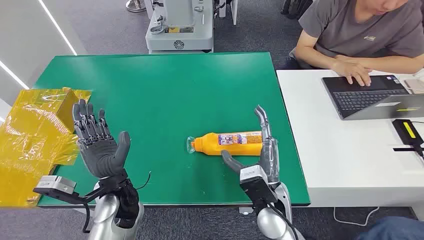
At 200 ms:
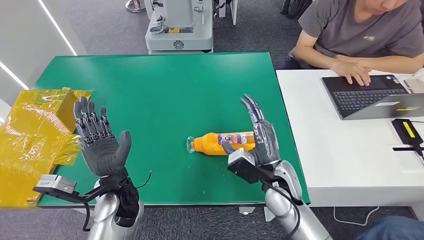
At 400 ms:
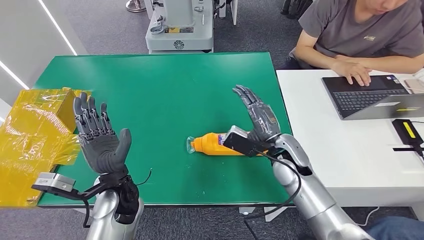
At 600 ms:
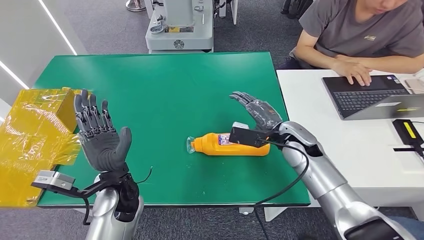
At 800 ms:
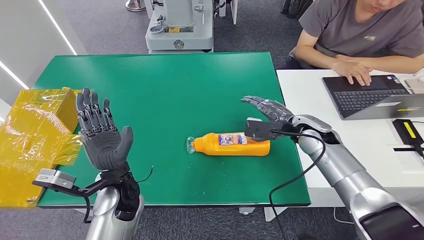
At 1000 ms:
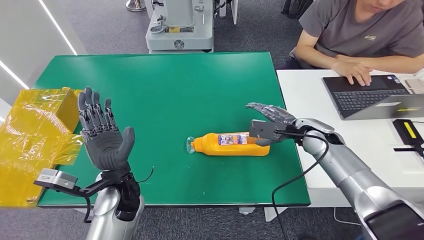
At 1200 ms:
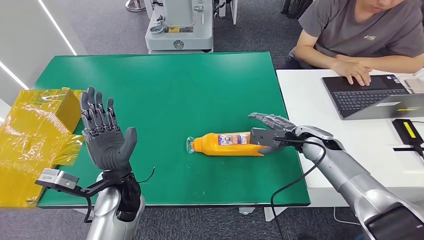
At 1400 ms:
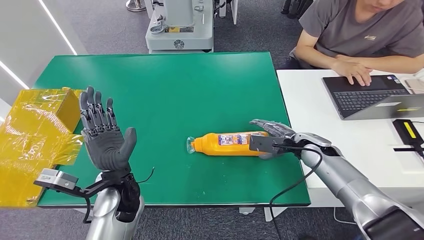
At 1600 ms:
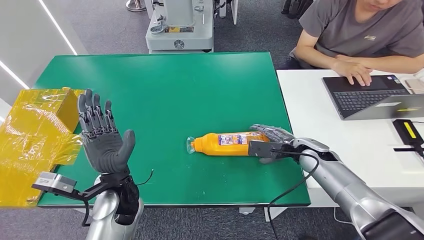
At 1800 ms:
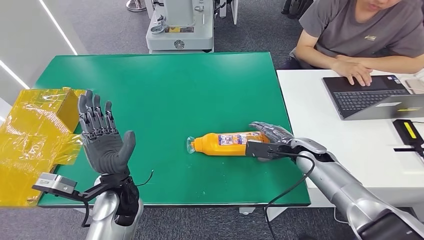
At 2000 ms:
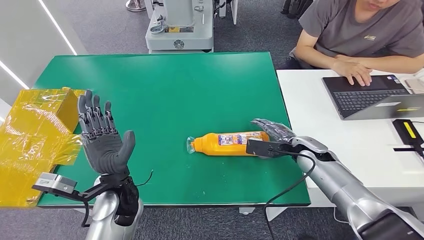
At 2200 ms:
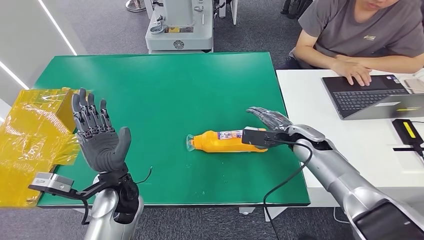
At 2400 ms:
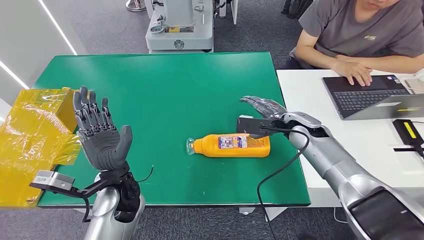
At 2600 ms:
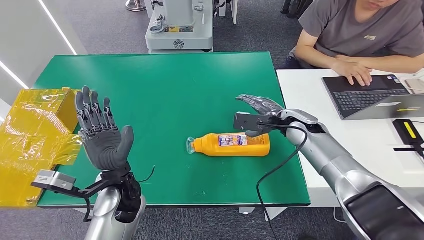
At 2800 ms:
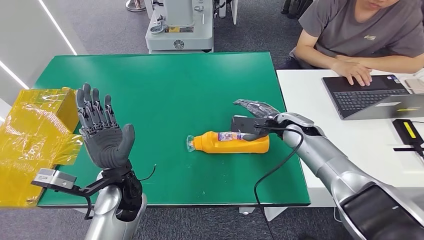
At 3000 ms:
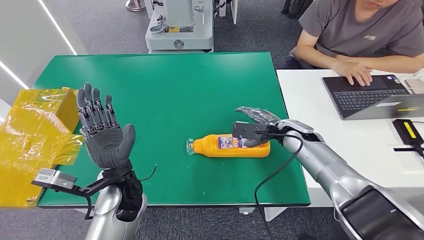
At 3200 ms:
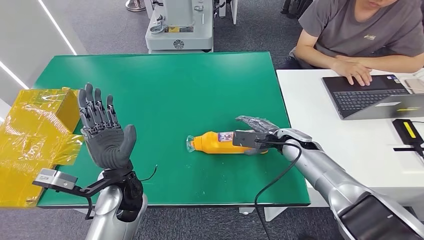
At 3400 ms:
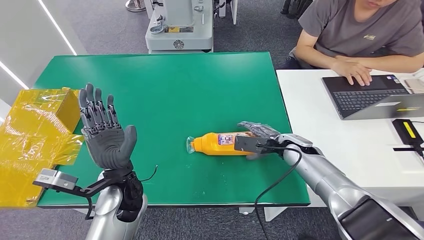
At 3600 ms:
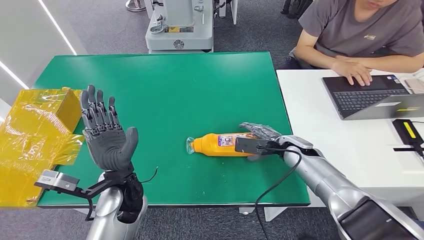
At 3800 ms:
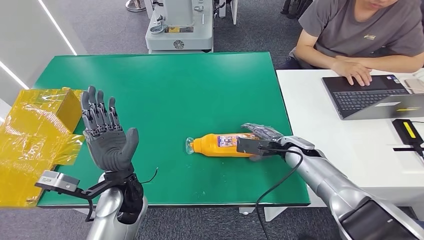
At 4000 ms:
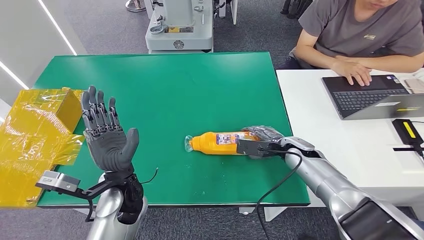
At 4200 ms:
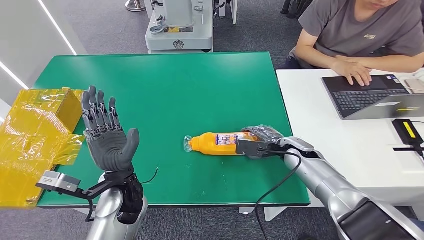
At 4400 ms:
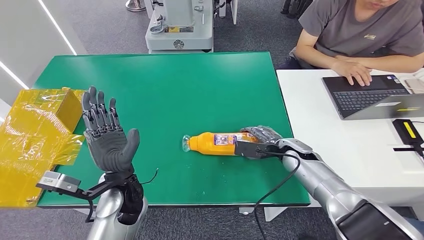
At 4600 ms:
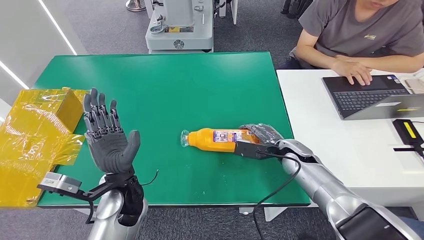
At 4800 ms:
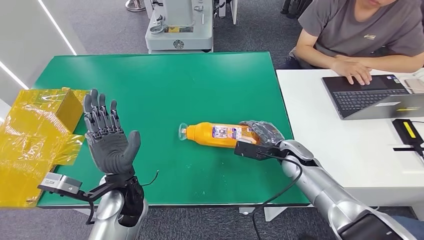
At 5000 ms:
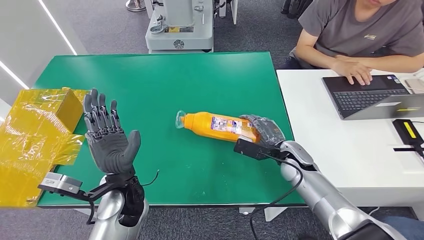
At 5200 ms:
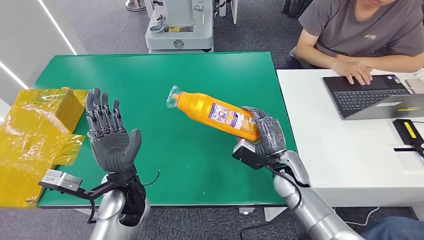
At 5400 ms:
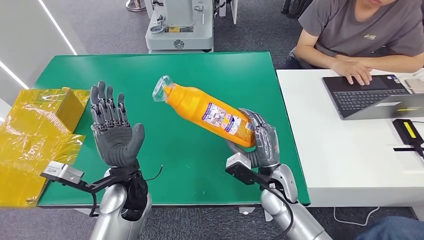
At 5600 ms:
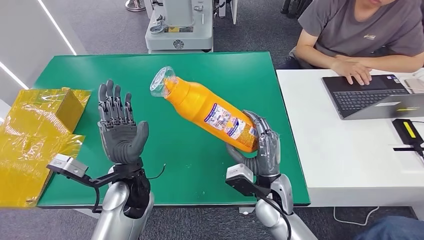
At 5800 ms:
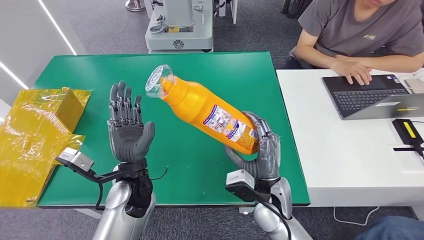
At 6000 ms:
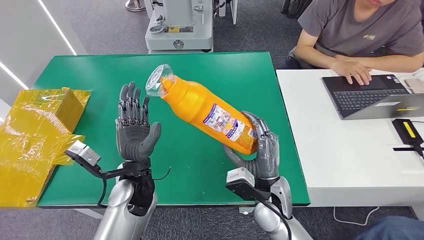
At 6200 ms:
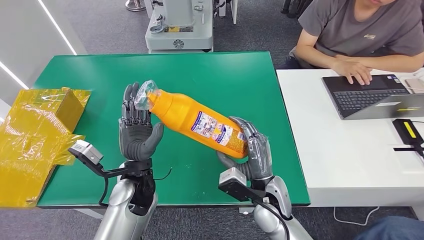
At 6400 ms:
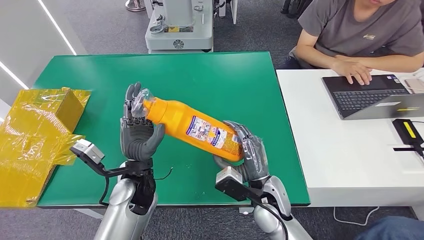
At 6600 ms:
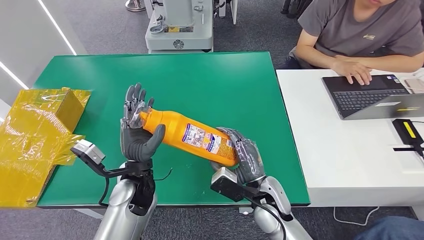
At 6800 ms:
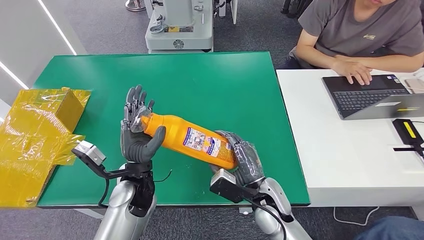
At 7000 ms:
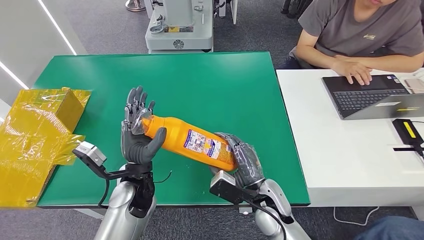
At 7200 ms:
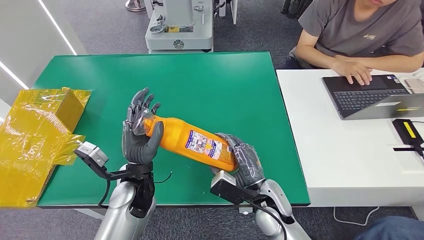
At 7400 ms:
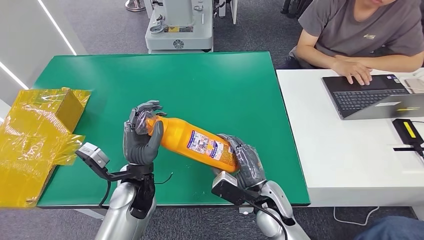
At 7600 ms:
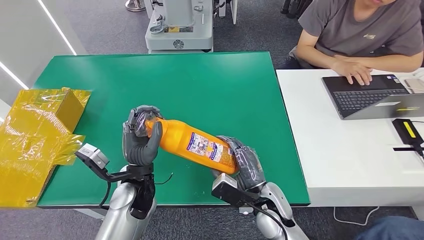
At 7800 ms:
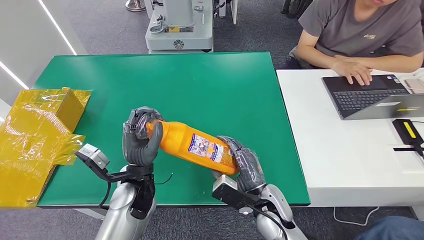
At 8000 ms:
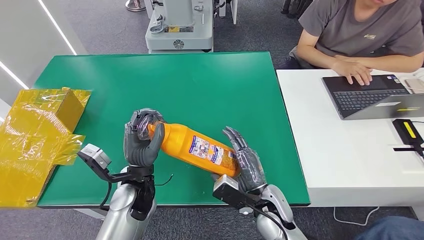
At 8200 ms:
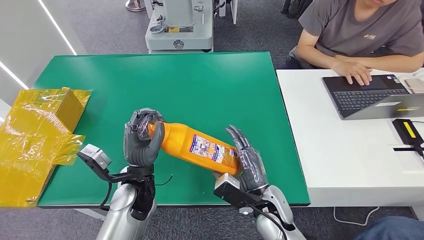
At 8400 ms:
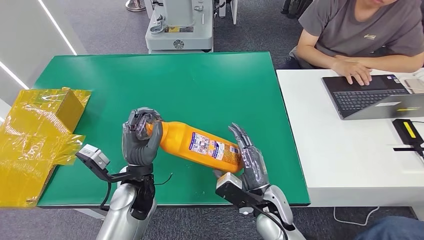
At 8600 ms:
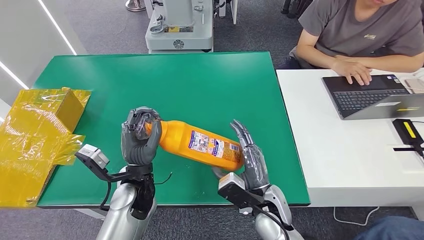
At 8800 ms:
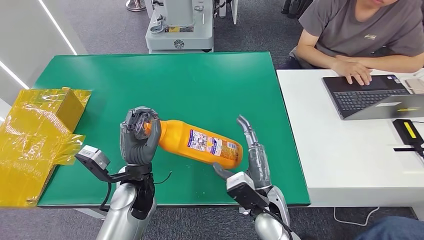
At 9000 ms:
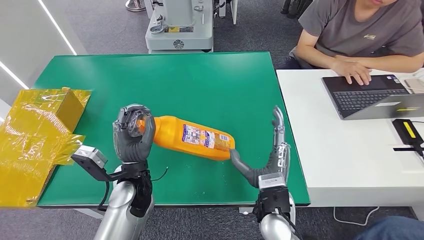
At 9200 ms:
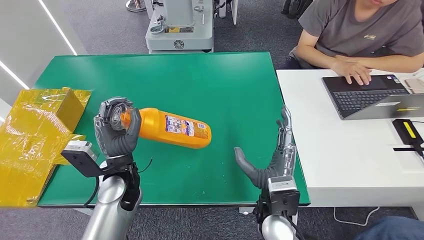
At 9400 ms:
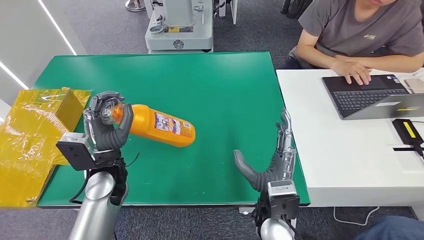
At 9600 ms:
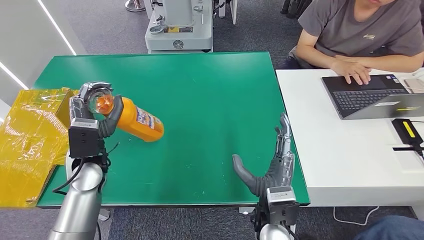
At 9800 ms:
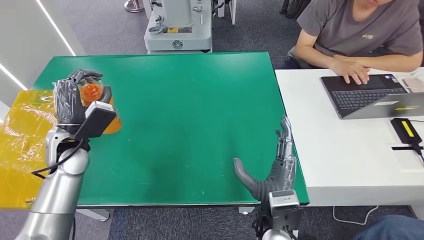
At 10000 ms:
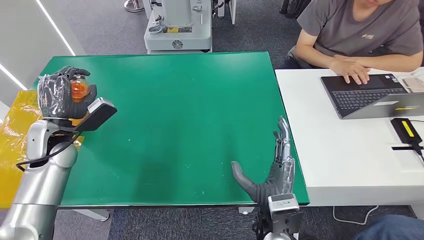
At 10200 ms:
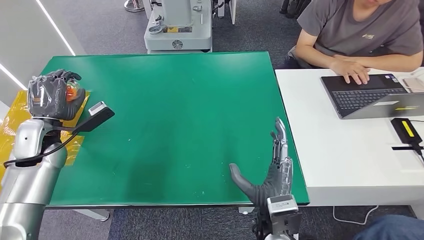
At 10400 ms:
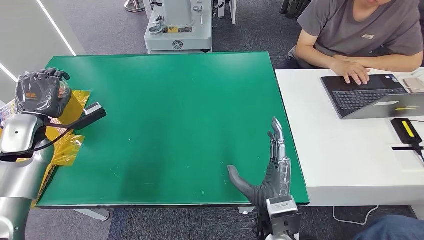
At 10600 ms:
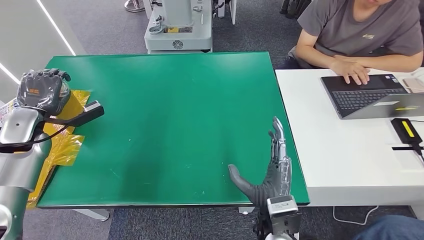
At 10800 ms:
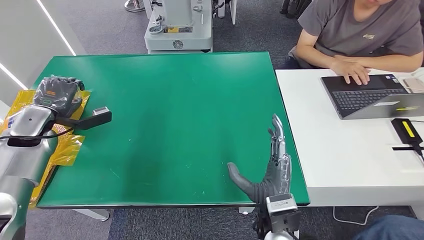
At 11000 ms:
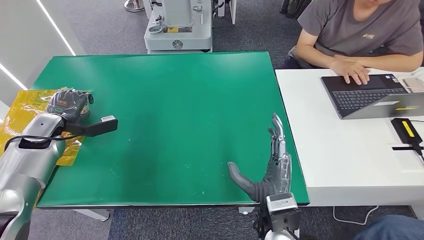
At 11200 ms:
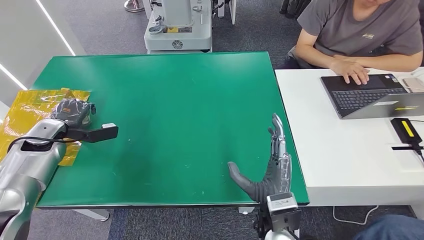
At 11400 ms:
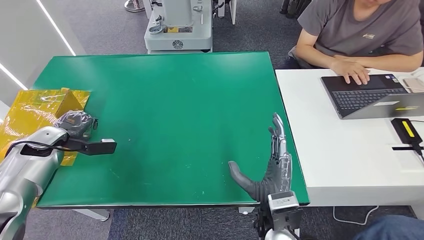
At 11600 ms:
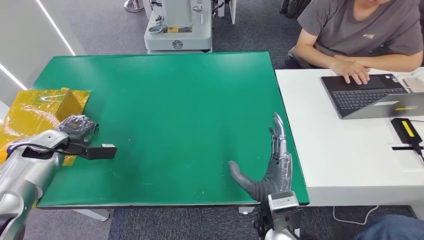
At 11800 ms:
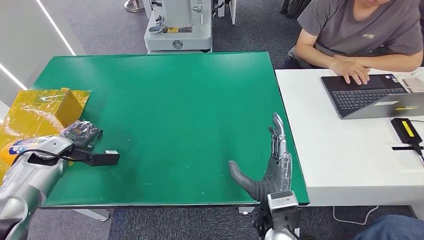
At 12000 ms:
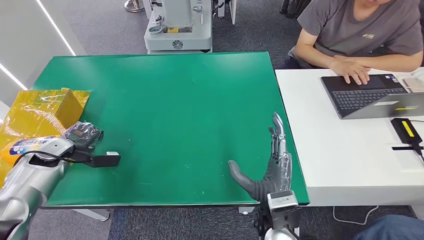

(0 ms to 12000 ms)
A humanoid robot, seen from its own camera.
Step, 0 ms - 8000 ms: Pick up the bottle from the table.
1600 ms - 3000 ms: The right hand ends up some 5 cm from where it was.
3000 ms - 4400 ms: The right hand is displaced downward by some 5 cm.
10400 ms - 12000 ms: The left hand heads downward, covering about 10 cm.

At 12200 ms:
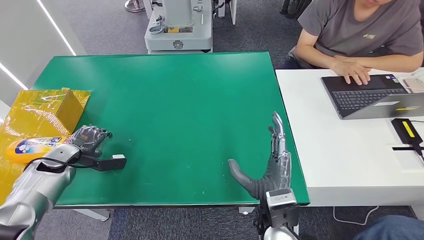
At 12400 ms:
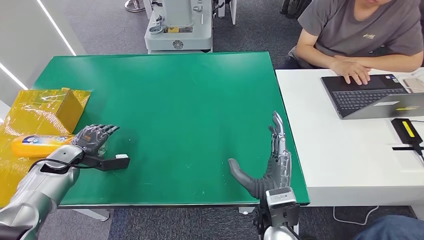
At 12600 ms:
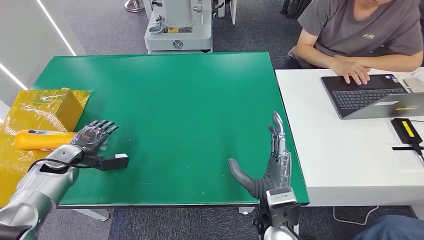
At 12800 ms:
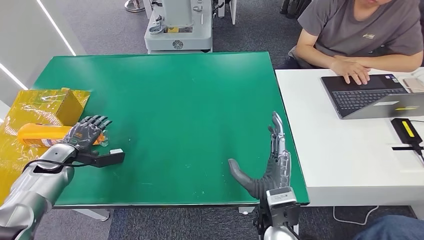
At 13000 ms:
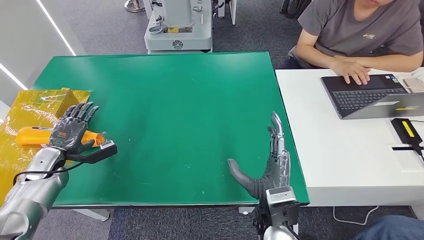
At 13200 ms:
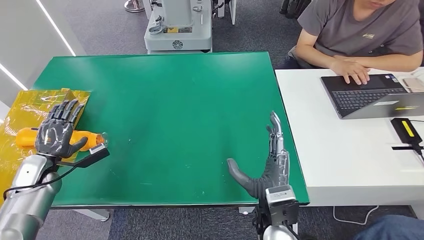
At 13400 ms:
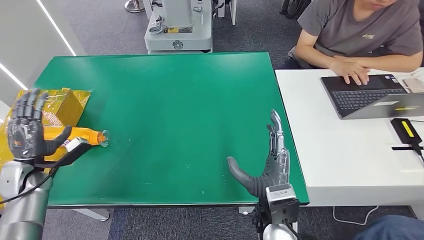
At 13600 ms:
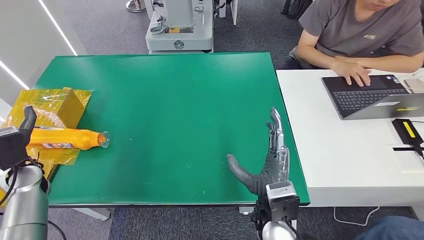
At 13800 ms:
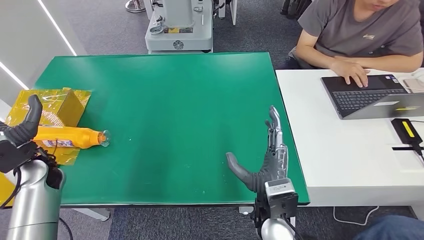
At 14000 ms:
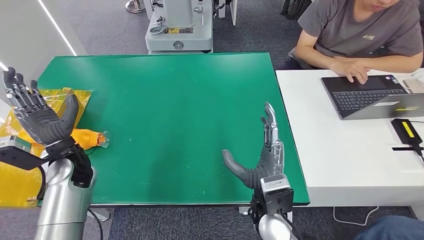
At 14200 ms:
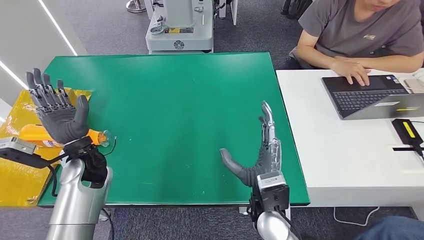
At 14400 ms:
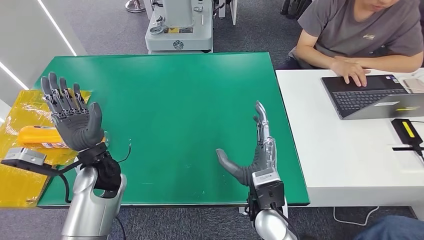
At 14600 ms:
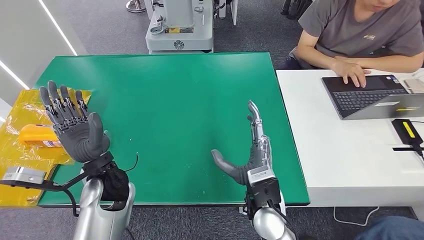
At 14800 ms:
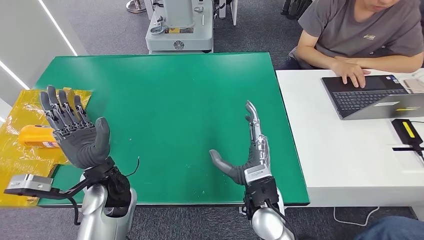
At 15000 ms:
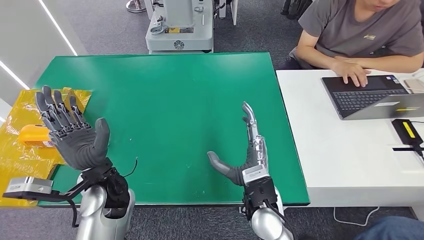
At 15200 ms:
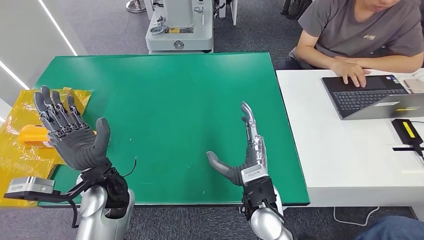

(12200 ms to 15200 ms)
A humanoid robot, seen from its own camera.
Step, 12200 ms - 15200 ms: Turn the bottle to the front side.
12200 ms - 13800 ms: The left hand heads upward and to the right, covering roughly 10 cm.
13800 ms - 15200 ms: The left hand heads to the right, covering roughly 20 cm.
